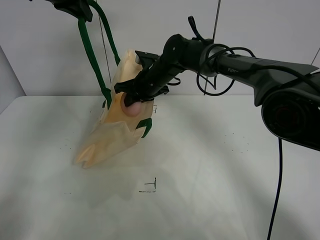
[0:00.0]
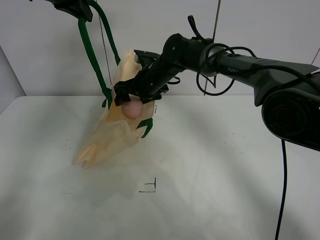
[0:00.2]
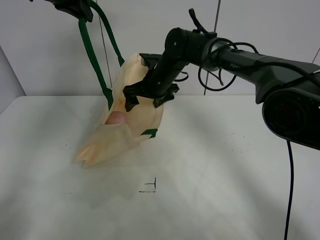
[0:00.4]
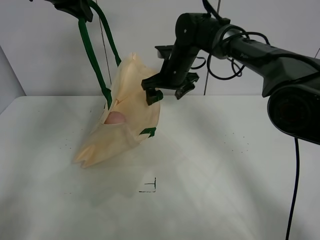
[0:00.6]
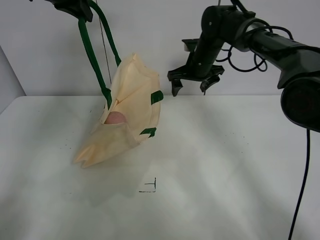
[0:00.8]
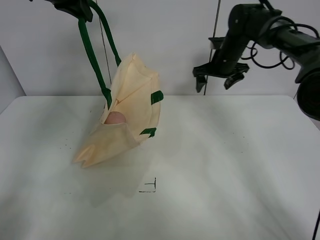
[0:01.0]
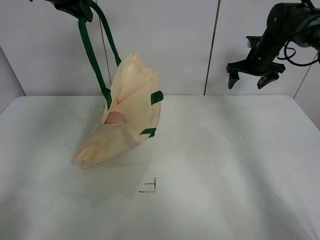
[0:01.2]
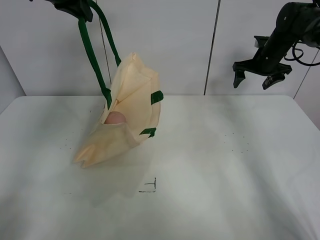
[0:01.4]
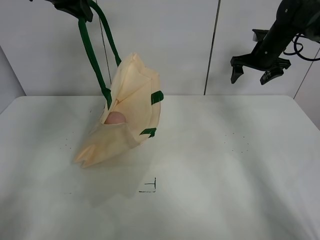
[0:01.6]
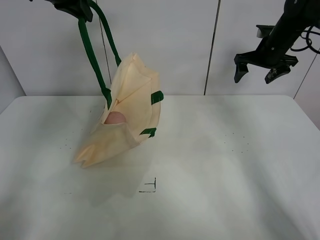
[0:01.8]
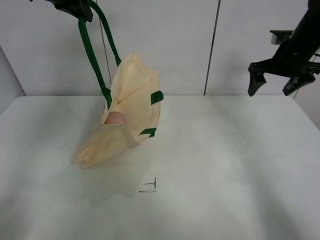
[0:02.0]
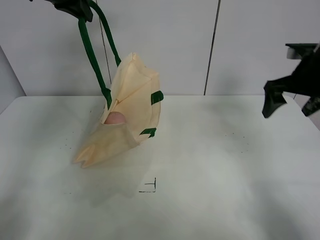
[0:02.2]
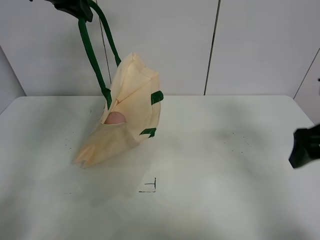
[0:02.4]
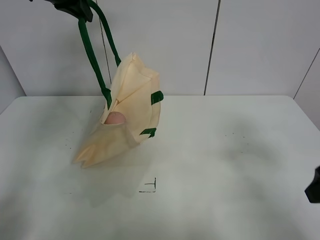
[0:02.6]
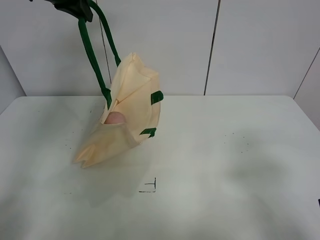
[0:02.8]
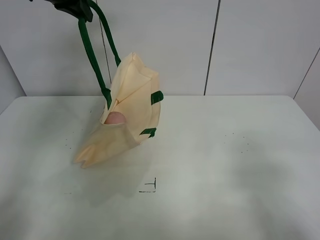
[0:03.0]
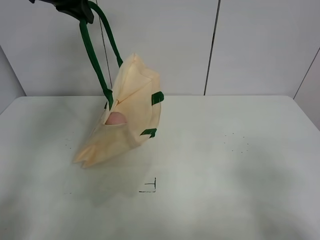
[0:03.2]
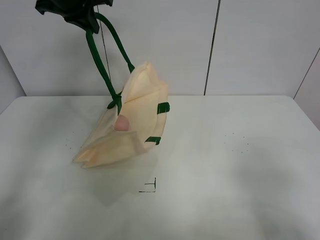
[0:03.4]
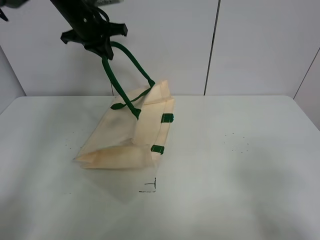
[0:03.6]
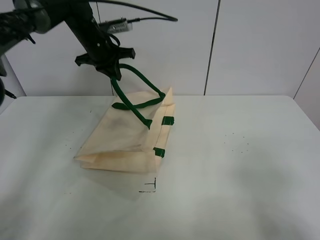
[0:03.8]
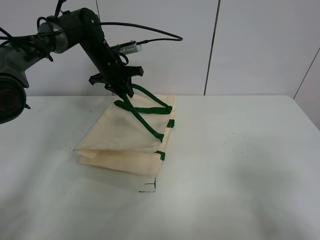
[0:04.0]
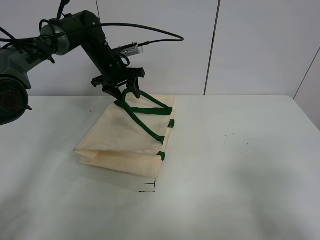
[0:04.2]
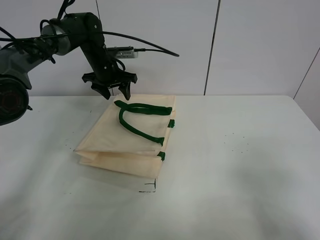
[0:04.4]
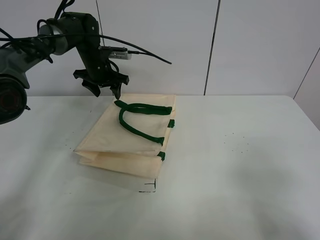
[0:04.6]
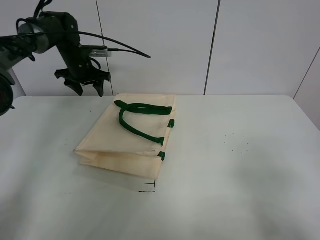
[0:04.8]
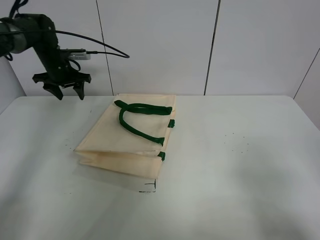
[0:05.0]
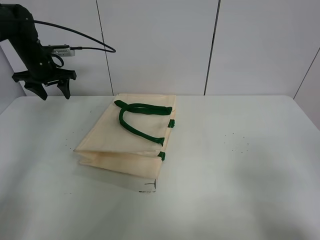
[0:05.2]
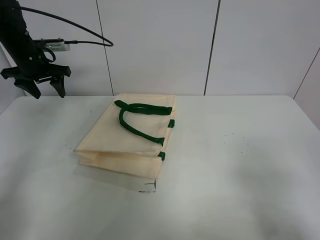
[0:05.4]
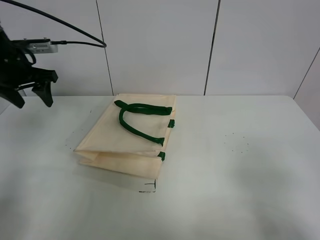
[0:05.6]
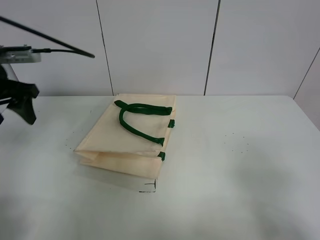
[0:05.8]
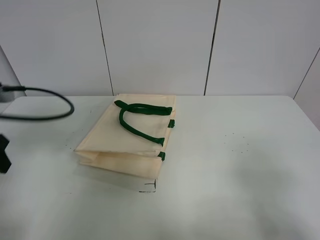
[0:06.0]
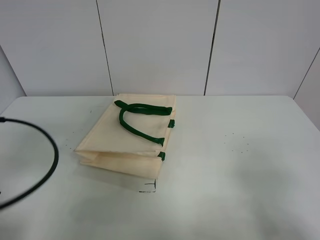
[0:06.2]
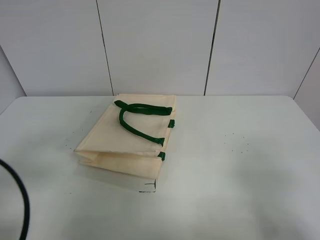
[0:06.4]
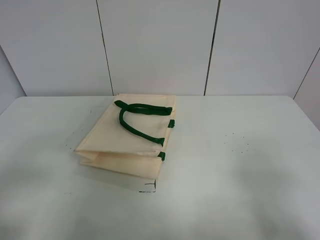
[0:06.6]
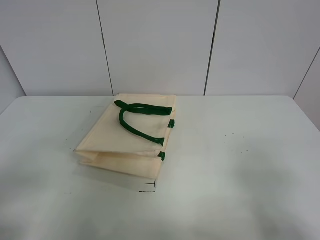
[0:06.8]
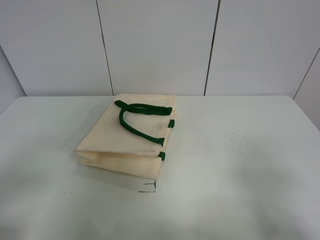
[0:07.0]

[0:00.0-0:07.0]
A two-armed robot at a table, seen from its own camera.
Task of the whole recording: open the white linen bag and put the peach in the bag.
Step, 0:00.8 to 0:04.6: Put down the handbag with left gripper.
0:00.0 to 0:01.4: The right gripper goes some 30 cm to the right, and opens up.
0:01.4 to 0:02.8: The right gripper goes about 40 cm backward.
0:02.8 to 0:04.2: The right gripper heads backward, covering approximately 10 cm; the left gripper travels downward and forward by some 25 cm, and opens up.
0:04.2 to 0:05.6: The left gripper shifts about 20 cm to the left and backward.
0:05.6 to 0:07.0: The left gripper is displaced backward by approximately 40 cm.

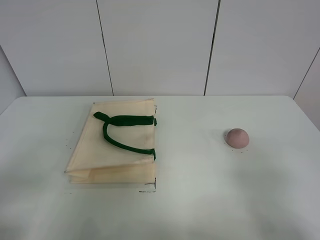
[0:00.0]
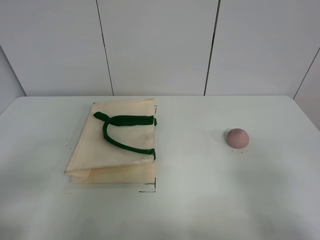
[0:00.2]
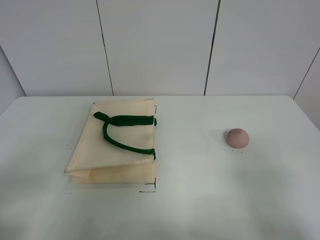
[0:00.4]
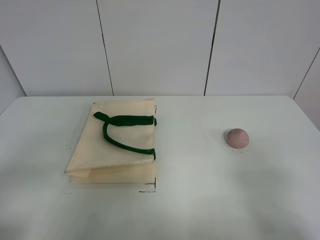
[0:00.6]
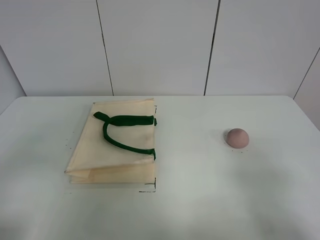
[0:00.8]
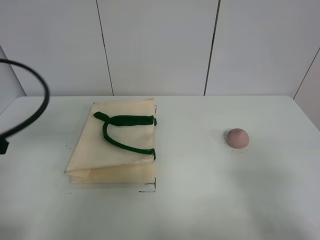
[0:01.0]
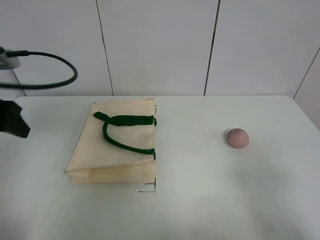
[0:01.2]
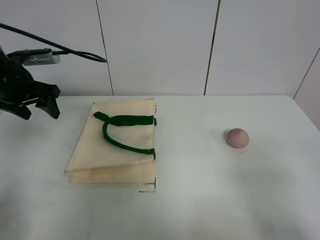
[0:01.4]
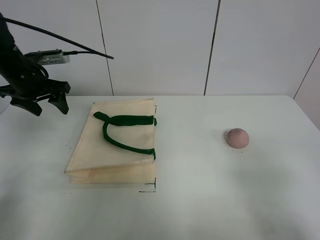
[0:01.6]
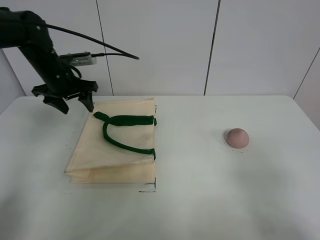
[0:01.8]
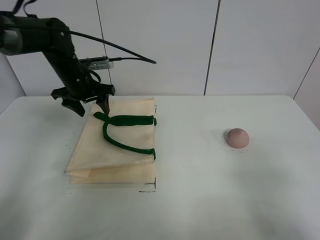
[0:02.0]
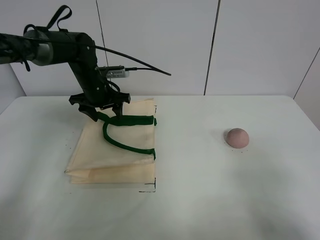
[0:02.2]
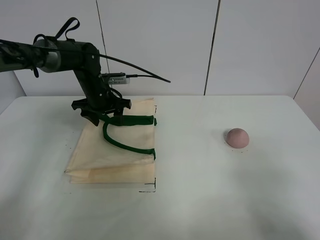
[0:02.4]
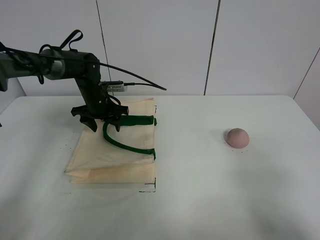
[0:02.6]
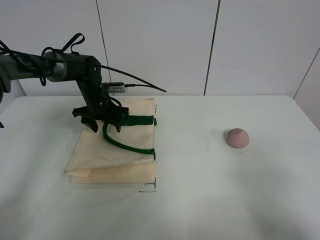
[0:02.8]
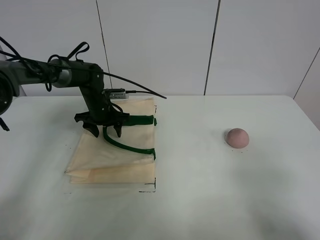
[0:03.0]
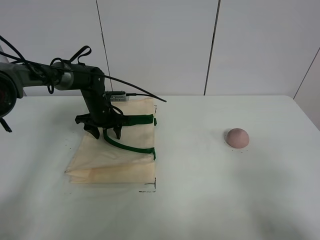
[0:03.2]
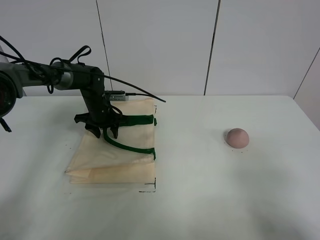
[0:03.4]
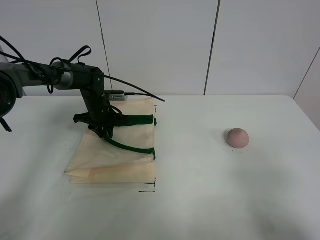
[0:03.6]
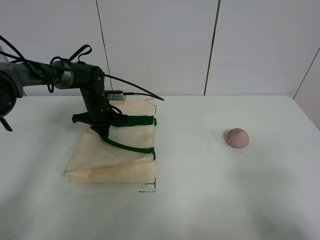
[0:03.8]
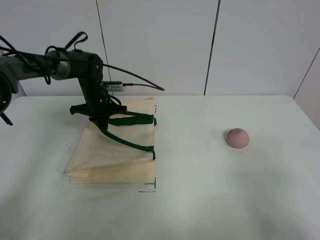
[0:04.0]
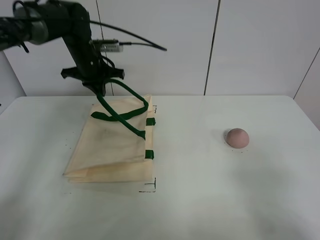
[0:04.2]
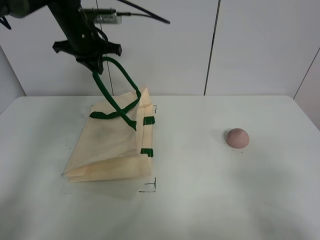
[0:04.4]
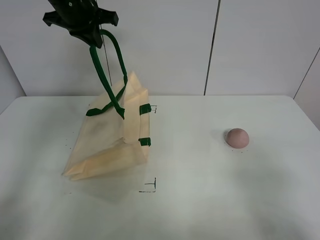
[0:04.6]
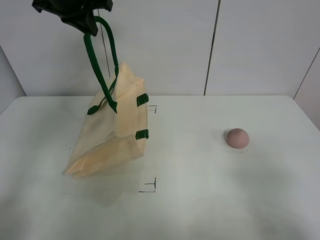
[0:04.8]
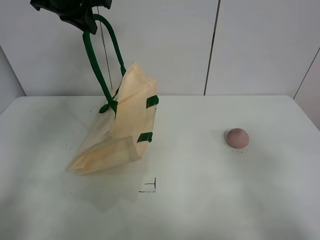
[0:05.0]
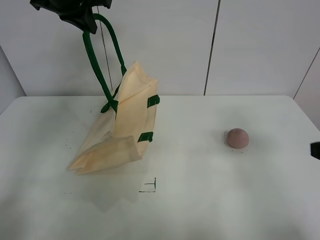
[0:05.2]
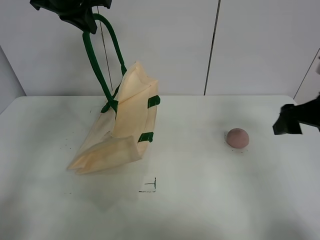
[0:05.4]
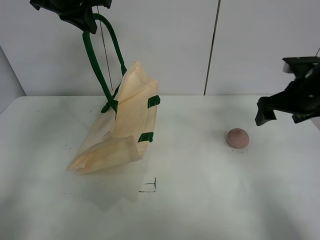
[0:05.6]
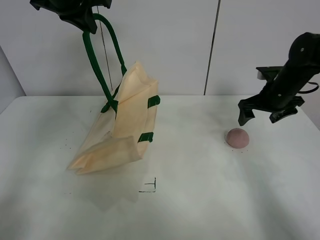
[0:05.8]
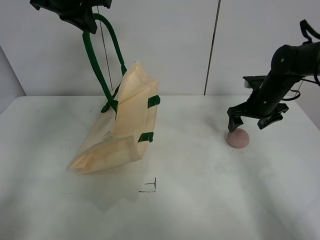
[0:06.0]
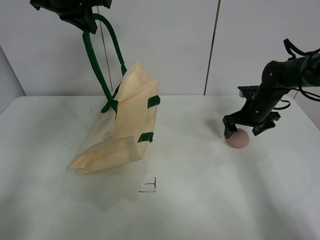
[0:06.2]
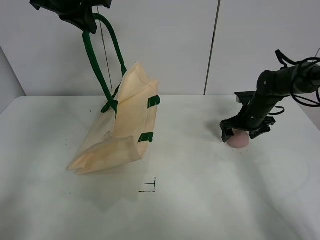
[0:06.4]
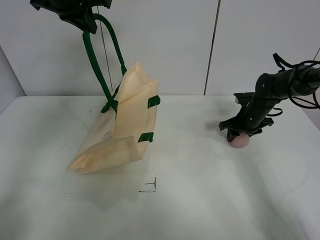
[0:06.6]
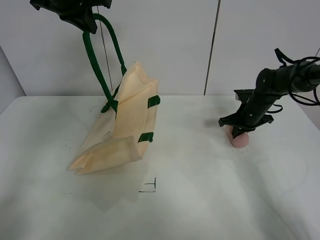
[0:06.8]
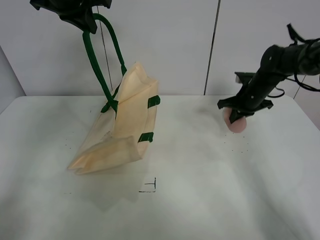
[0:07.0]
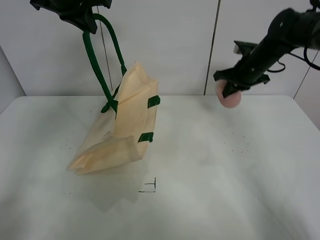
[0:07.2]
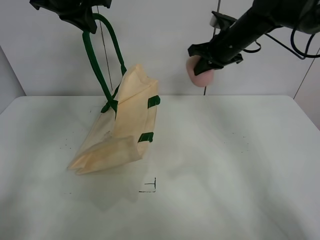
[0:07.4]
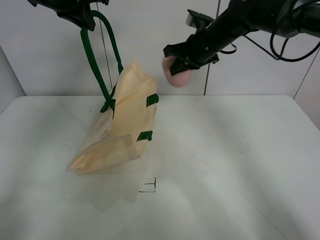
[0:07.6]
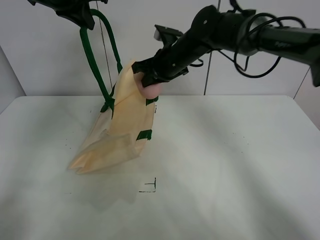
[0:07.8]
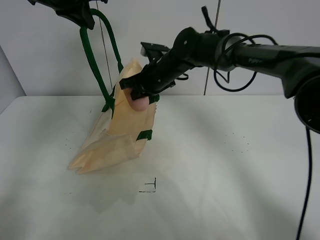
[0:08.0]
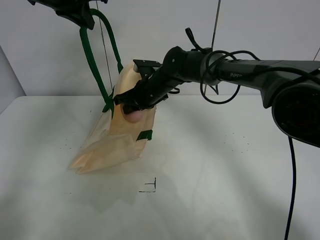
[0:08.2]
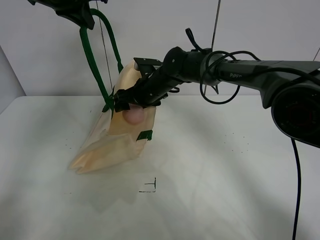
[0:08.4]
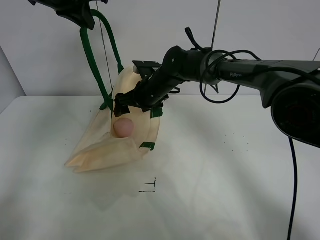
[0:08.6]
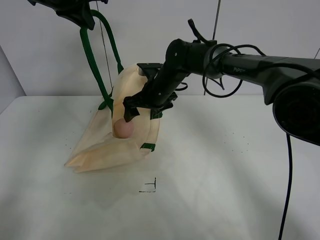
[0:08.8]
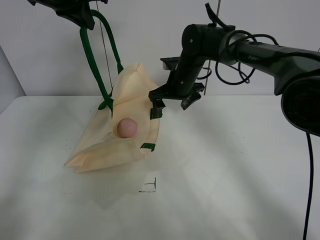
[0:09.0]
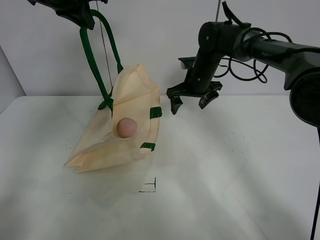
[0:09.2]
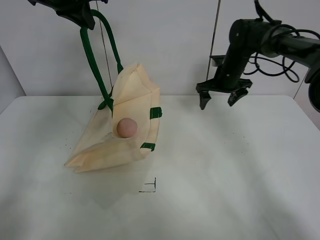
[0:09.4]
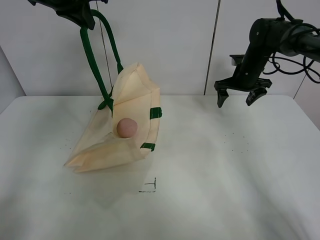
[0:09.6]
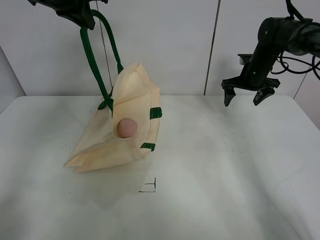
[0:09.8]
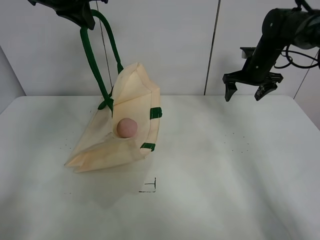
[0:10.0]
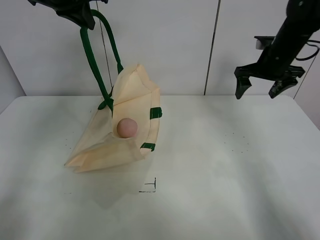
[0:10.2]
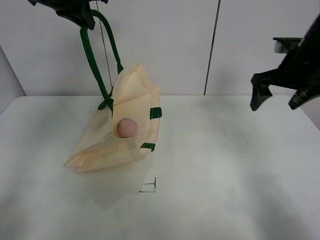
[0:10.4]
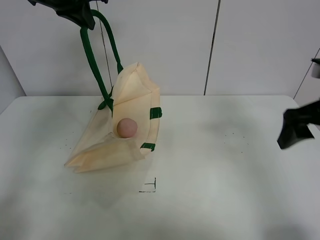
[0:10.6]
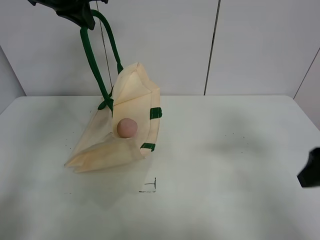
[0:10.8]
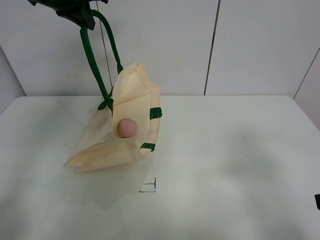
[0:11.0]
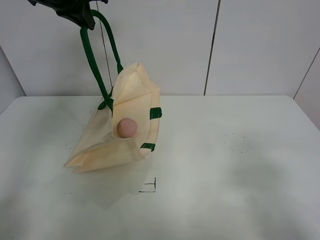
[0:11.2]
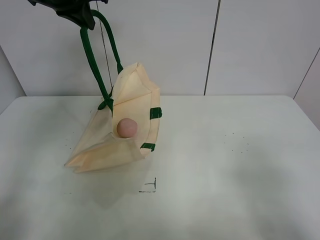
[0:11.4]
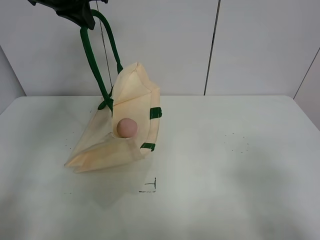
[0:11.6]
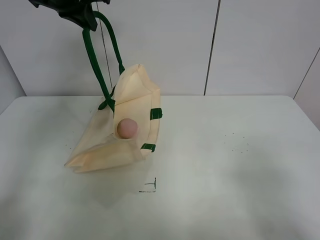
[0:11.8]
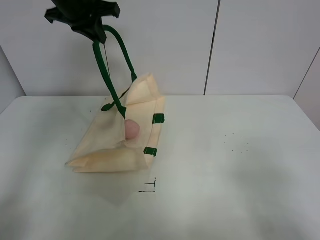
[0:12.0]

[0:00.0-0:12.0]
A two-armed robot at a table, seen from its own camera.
Task of the whole recording: open the white linen bag and put the peach in the bag.
Step, 0:00.0 to 0:04.8: Lift the handbag with left gripper.
Step, 0:05.0 to 0:06.8: Grasp the peach with right gripper.
Step, 0:07.0 to 0:08.6: Place the peach in the handbag with right gripper.
0:00.0 to 0:01.6: The left gripper heads forward, covering roughly 40 cm.
0:01.6 to 0:03.0: The left gripper is displaced downward, to the right and forward by some 20 cm.
0:03.0 to 0:04.4: The left gripper shifts some 25 cm upward, and closes.
0:04.4 to 0:06.0: The left gripper goes some 10 cm upward; the right gripper moves forward, some 40 cm.
0:06.0 to 0:07.6: The right gripper is displaced to the left and upward by roughly 20 cm, and closes up.
0:07.6 to 0:09.0: The right gripper heads downward, covering approximately 10 cm, and opens up.
0:09.0 to 0:10.4: The right gripper travels to the right, backward and upward by roughly 25 cm.
0:10.4 to 0:12.0: The left gripper moves about 5 cm. The right gripper heads backward, covering about 30 cm.

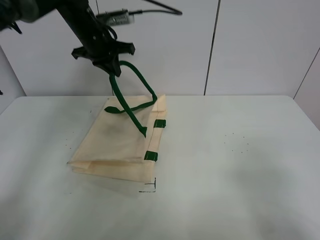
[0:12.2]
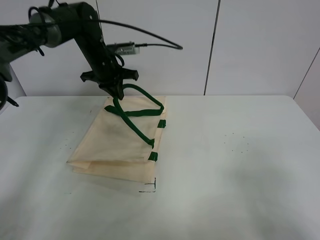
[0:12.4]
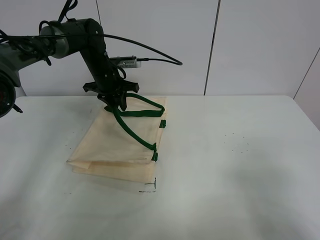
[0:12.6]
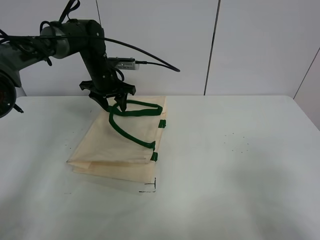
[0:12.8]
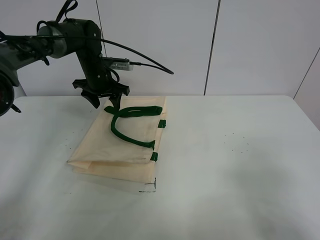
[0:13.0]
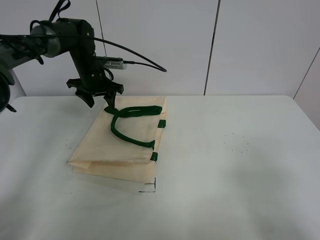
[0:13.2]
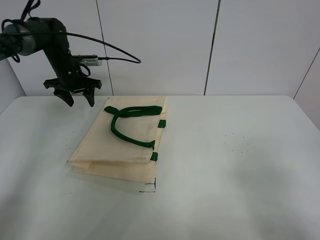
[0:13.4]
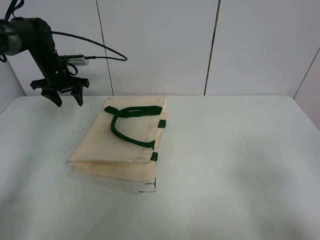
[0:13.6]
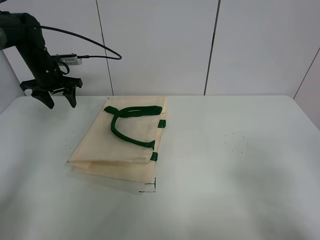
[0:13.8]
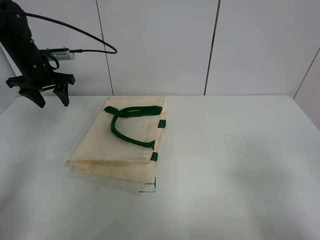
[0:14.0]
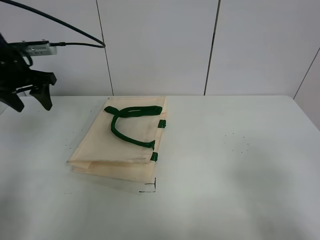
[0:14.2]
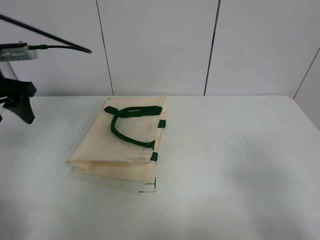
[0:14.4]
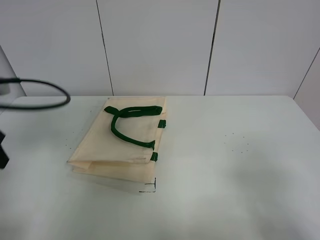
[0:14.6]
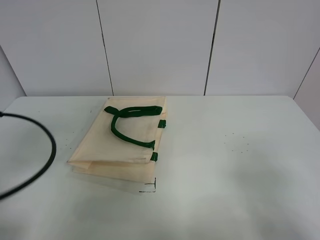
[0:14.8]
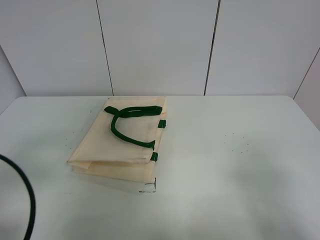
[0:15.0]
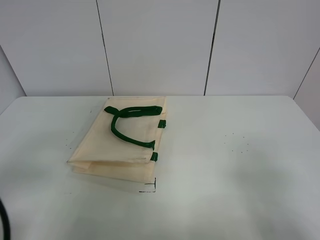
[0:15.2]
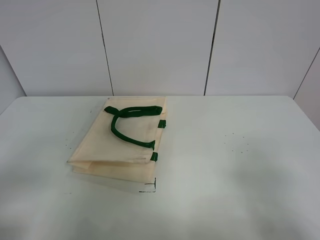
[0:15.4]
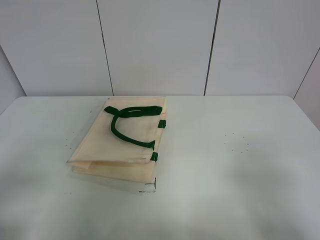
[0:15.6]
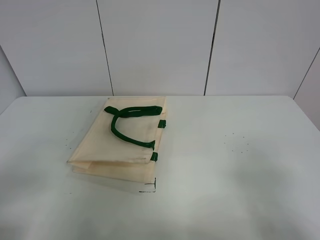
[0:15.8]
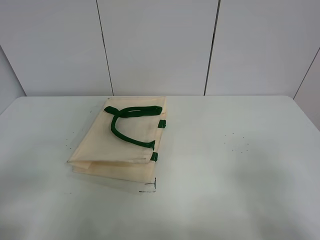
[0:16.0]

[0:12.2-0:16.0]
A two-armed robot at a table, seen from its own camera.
Task of the whole recording: open the white linen bag and put the peach in the bag.
0:12.2 to 0:13.4: The left gripper heads to the left and downward, covering roughly 15 cm, and opens up.
0:13.4 to 0:14.8: The left gripper travels backward by approximately 40 cm.
0:14.8 to 0:16.0: The left gripper goes approximately 10 cm backward.
